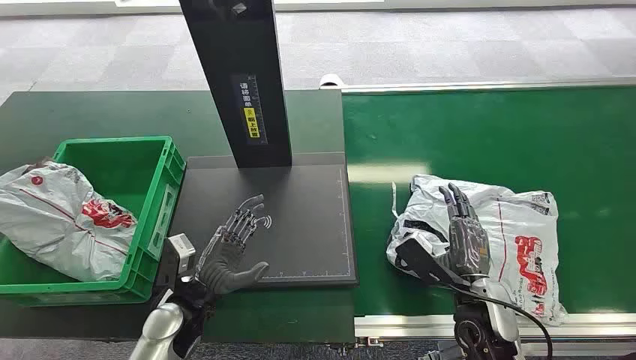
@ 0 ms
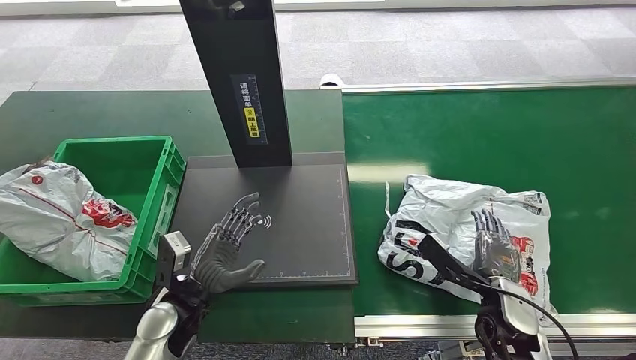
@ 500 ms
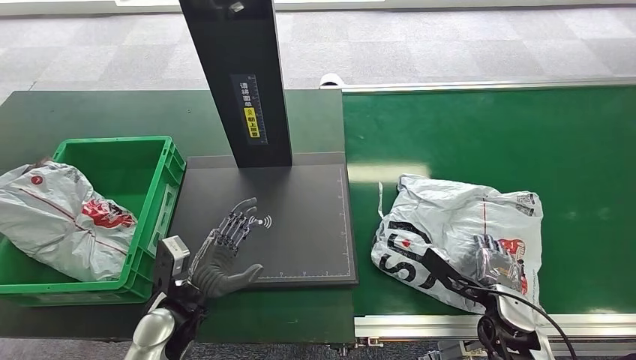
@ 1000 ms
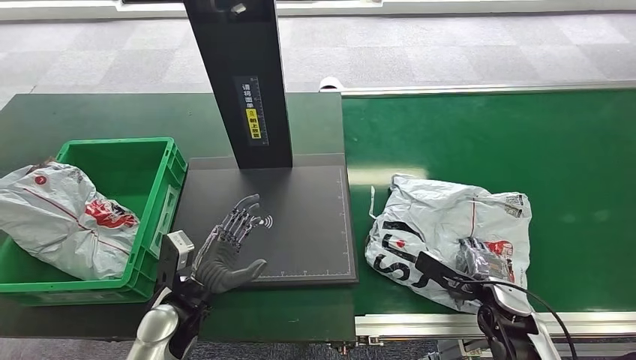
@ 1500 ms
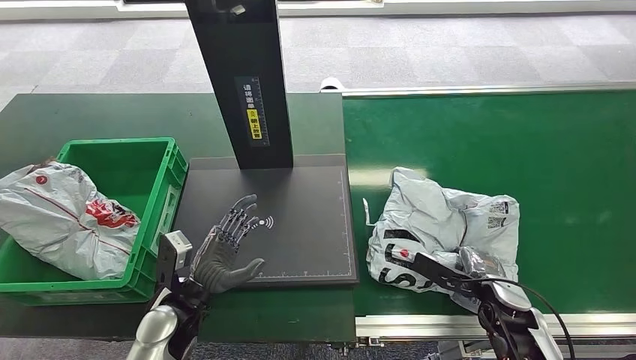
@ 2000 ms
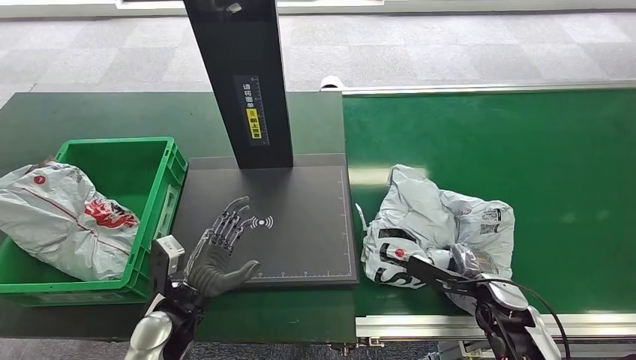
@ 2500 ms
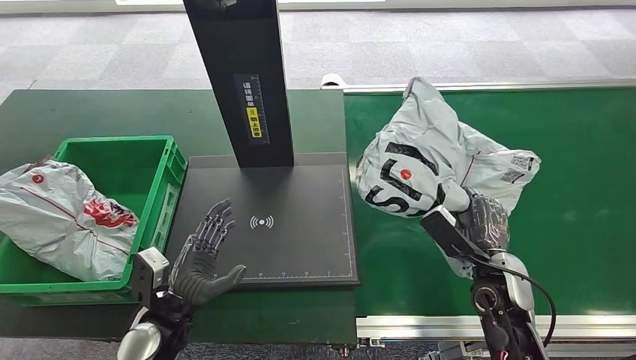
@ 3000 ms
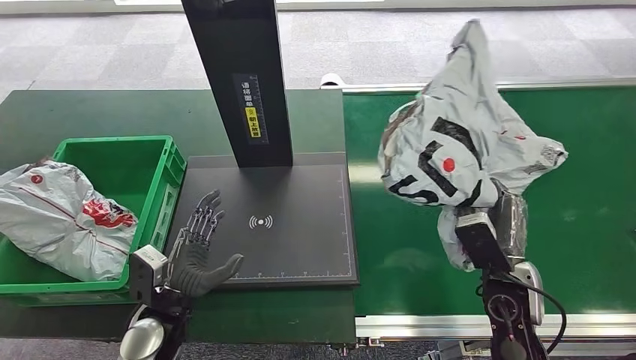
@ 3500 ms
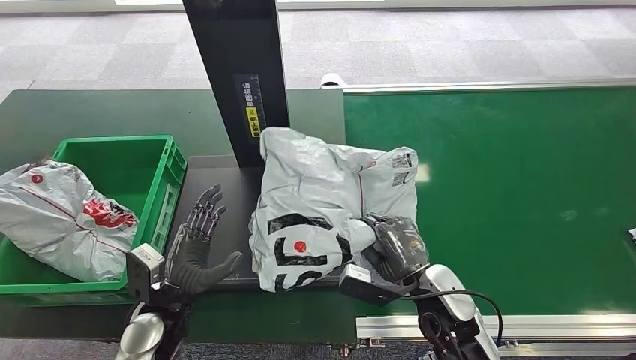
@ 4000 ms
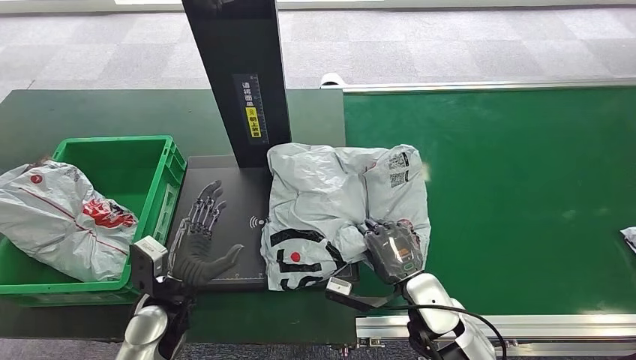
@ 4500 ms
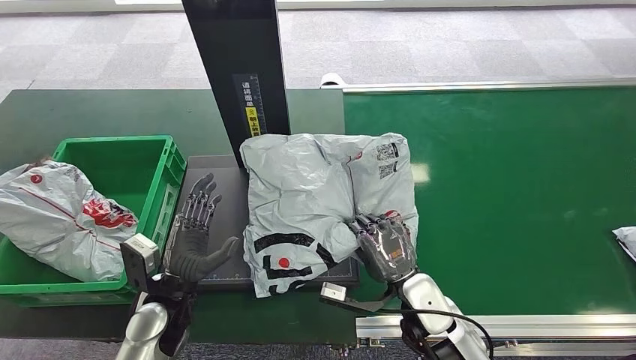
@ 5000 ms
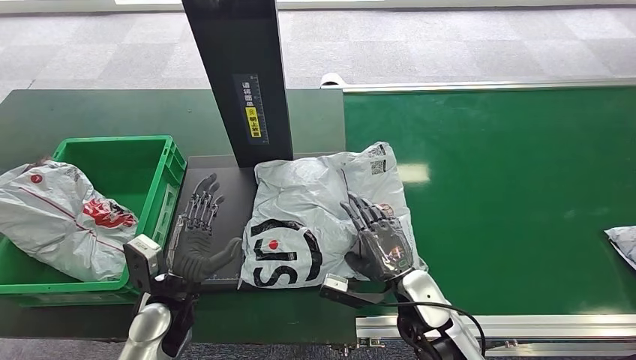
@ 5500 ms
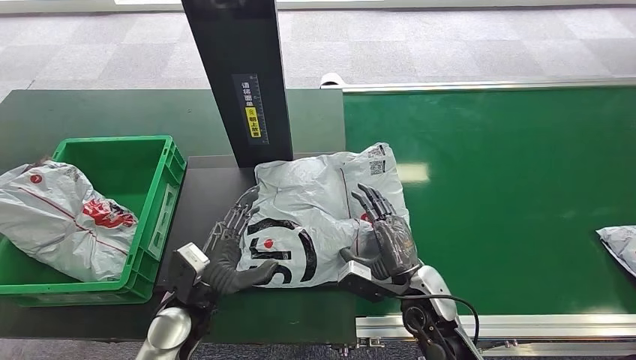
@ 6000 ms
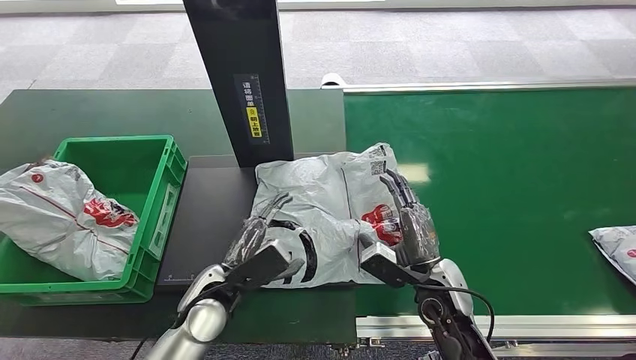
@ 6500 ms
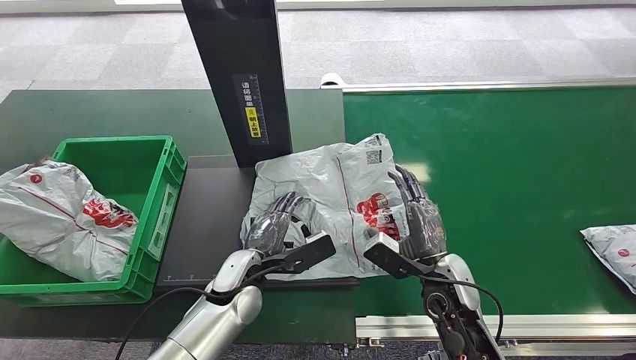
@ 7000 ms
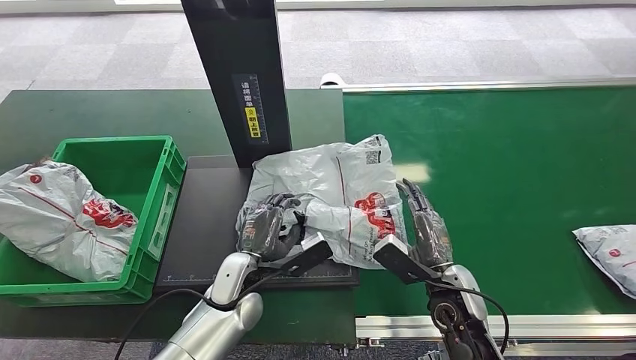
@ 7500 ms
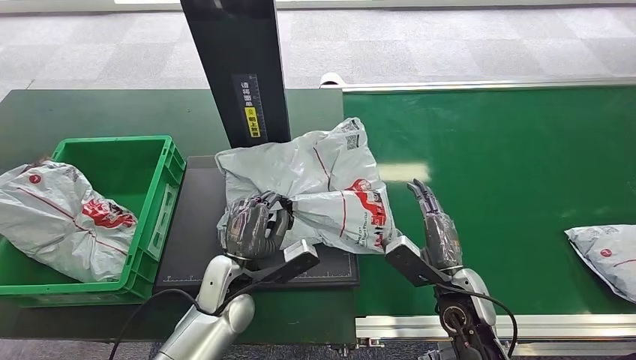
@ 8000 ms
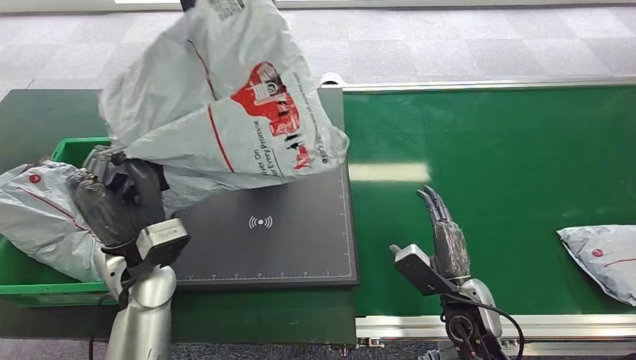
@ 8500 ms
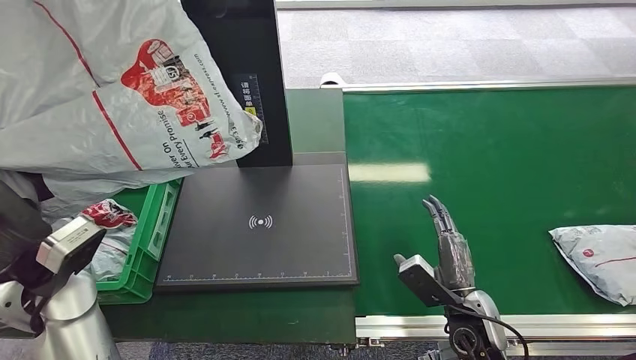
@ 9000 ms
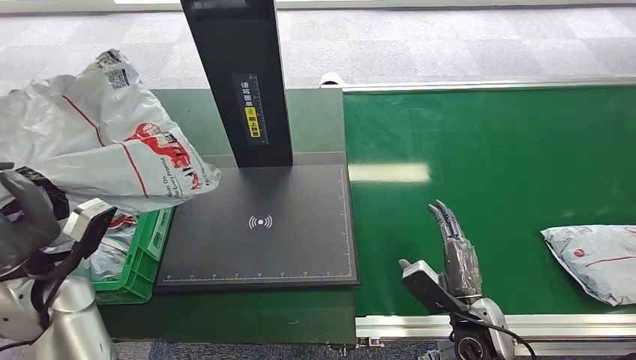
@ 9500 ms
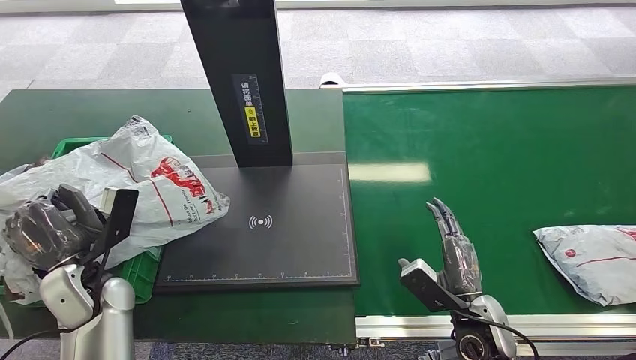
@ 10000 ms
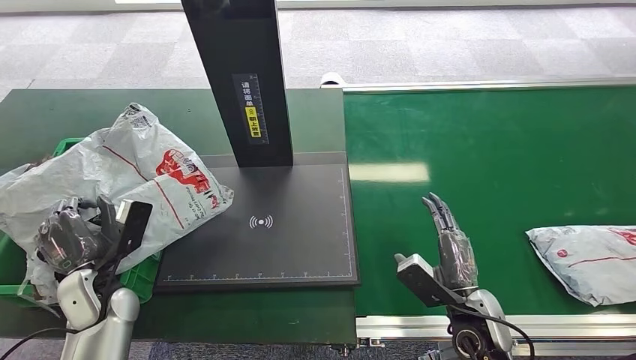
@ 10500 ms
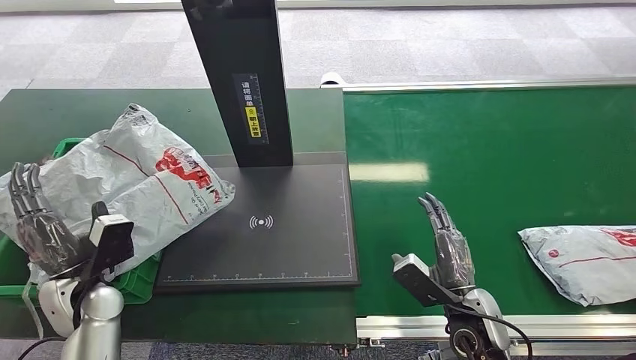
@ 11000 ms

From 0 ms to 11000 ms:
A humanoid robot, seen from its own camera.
Step, from 0 ms to 3000 ms: Pick up the package from the conveyor belt.
Step, from 3500 ms to 6000 ms: Place the package onto the inbound machine.
Step, from 6500 ms to 8000 ms: Pick up the package from the inbound machine.
Step, from 8500 ms to 11000 ms: Place the package into the parcel locker.
From 5500 ms to 7500 ms: The left hand shifts about 10 cm to the right.

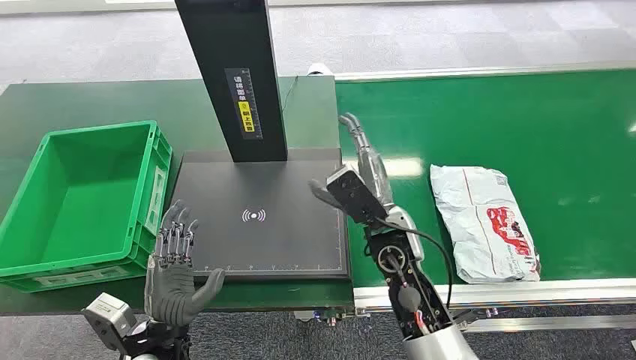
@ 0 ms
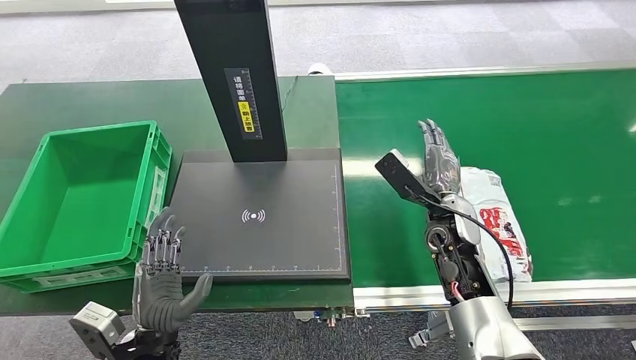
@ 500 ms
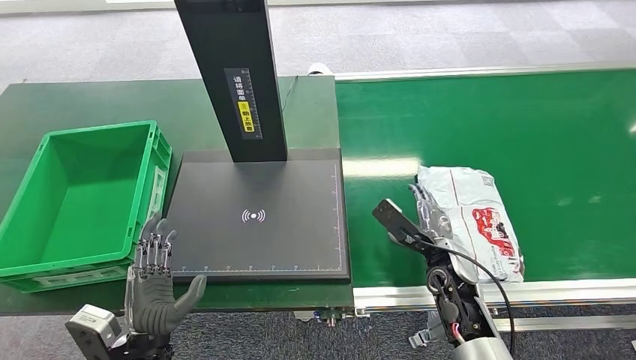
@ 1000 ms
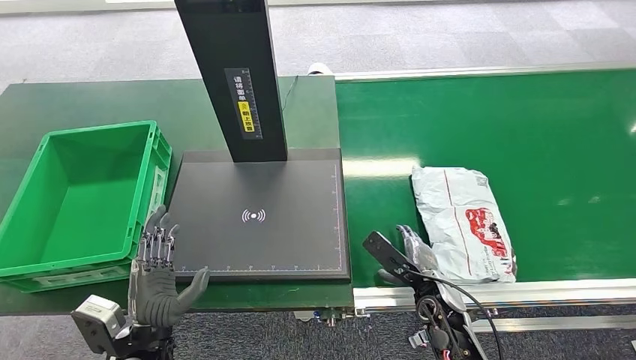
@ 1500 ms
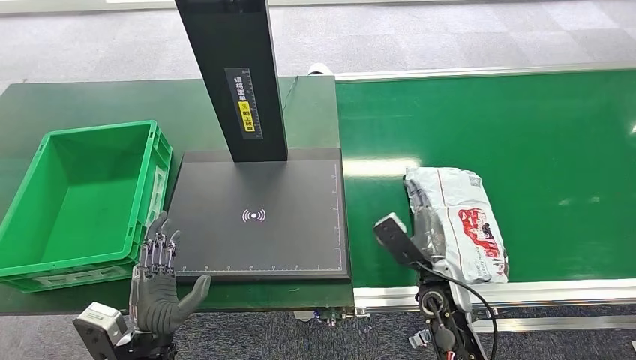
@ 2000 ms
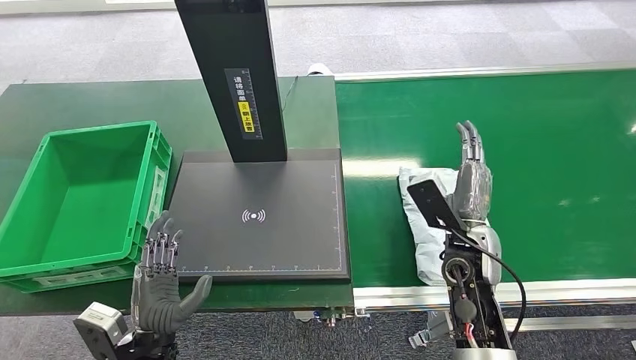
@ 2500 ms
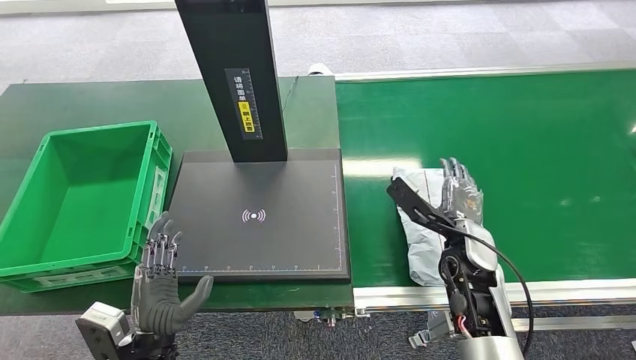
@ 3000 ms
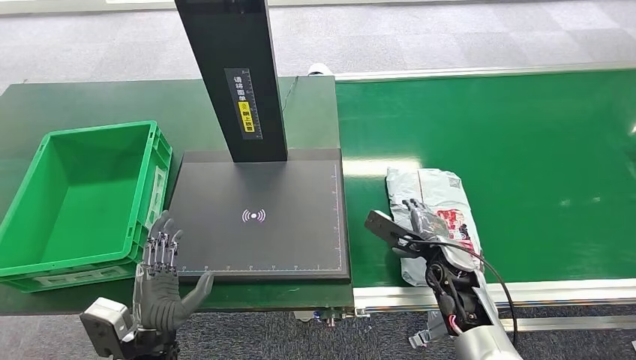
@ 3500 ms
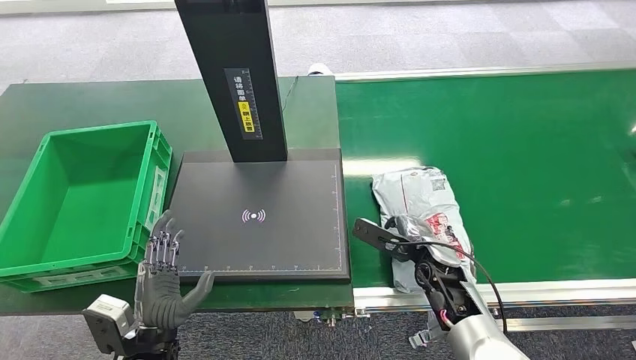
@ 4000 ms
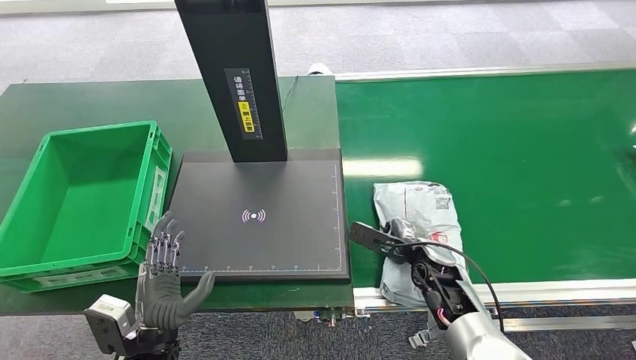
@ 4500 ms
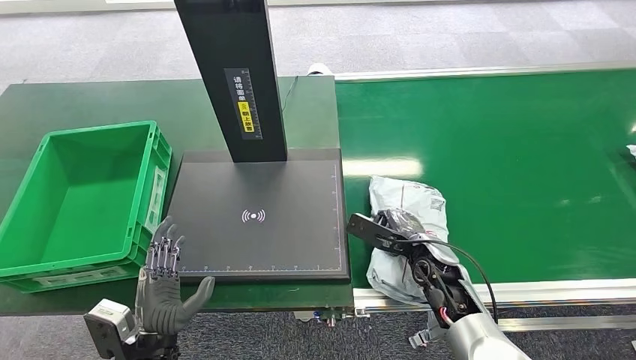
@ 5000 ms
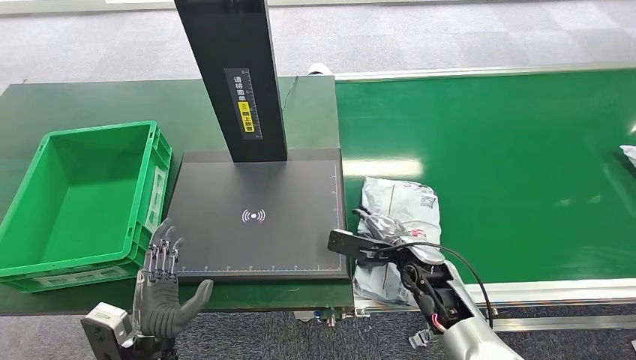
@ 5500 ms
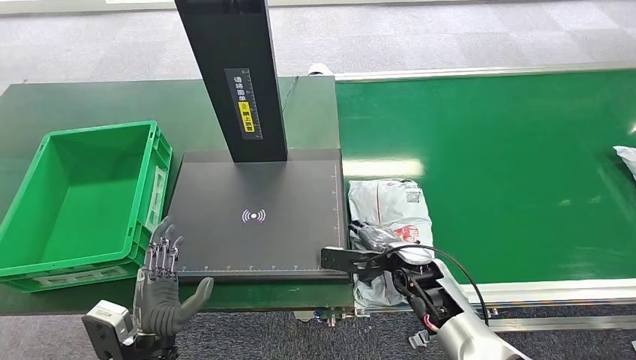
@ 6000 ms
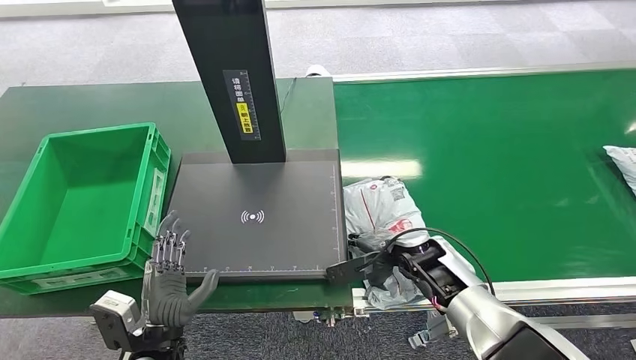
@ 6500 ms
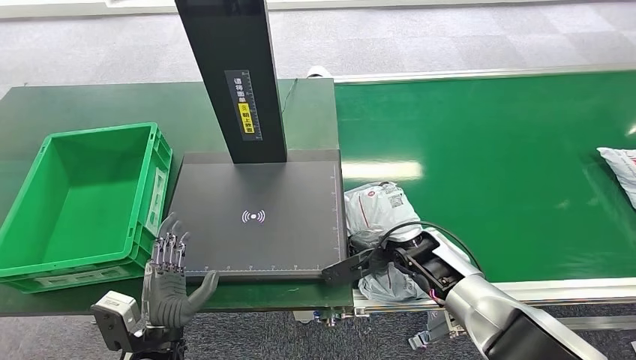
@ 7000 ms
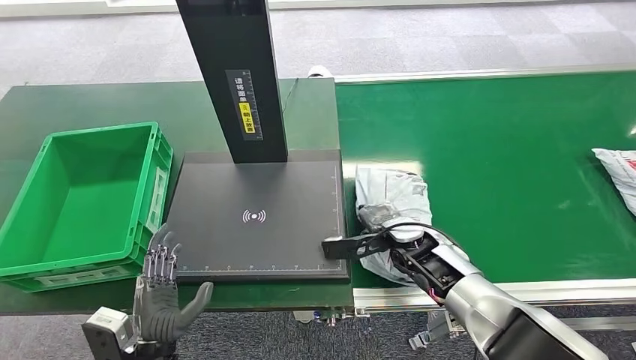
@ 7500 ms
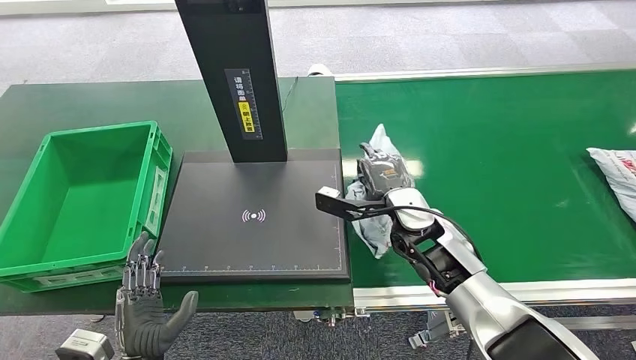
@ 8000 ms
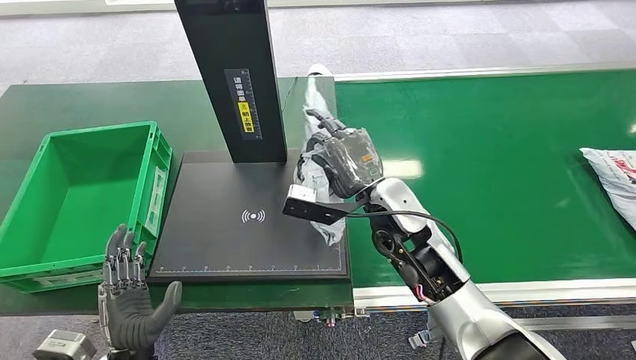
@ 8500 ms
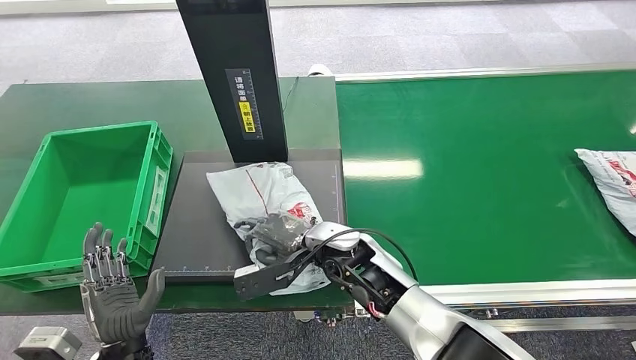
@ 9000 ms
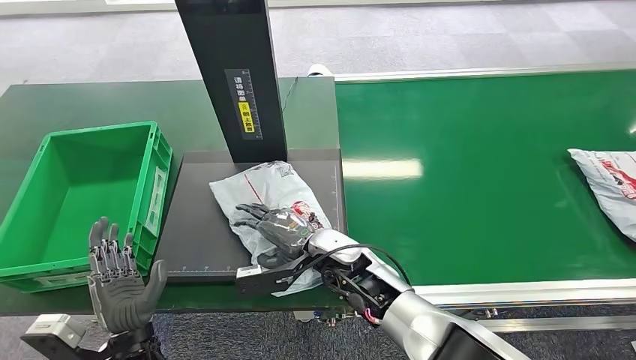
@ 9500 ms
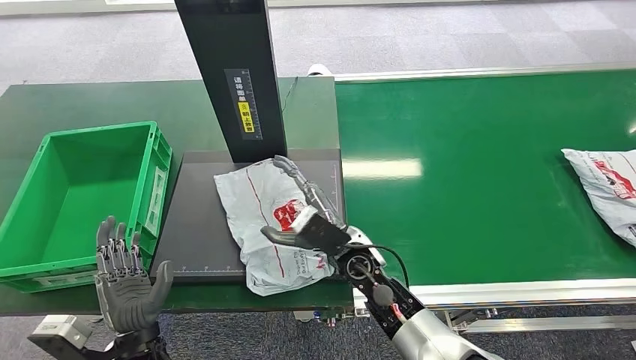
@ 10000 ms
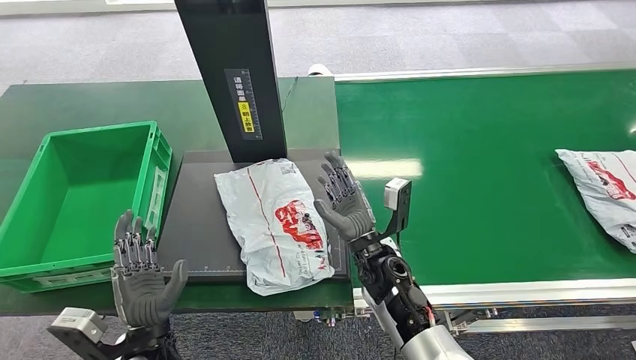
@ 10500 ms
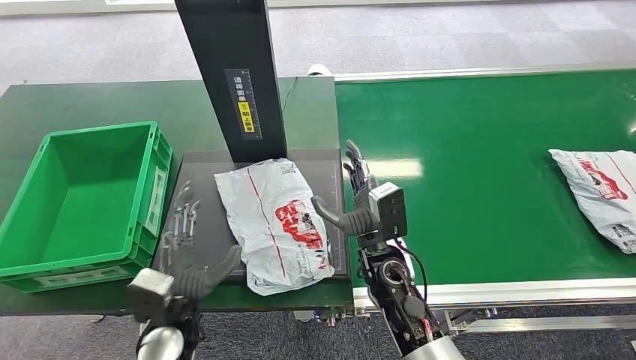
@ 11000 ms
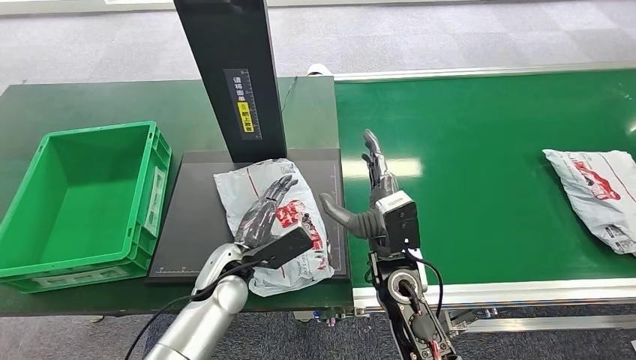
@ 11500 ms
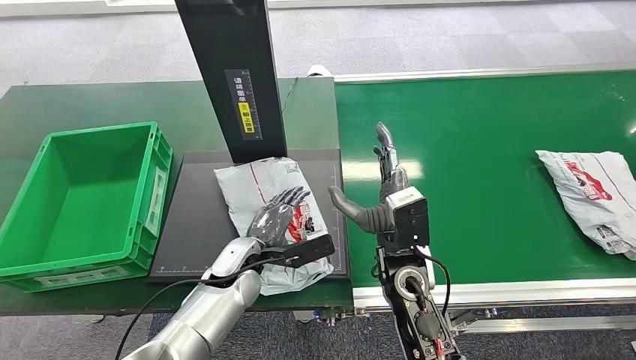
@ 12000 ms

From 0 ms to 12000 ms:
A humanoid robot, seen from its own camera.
Step, from 0 ms to 8500 ms: Pick up the package from the conveyor belt.
Step, from 9000 ms to 10500 ms: Place the package onto the inbound machine.
From 2000 ms to 4000 ms: The right hand reaches some 10 cm upward, then returns.
From 6000 ms to 8000 ms: The right hand moves upward and forward, about 10 cm.
From 10000 ms to 12000 ms: The left hand travels forward and to the right by about 20 cm; the right hand ends up some 5 cm from where it was.
